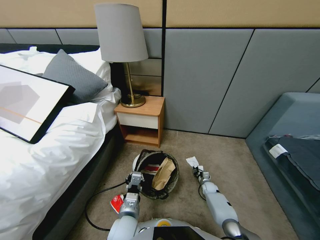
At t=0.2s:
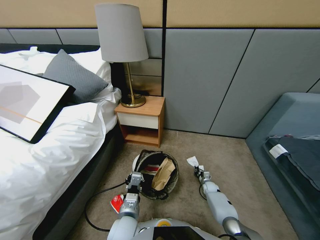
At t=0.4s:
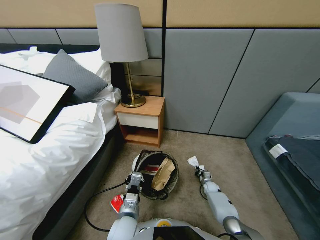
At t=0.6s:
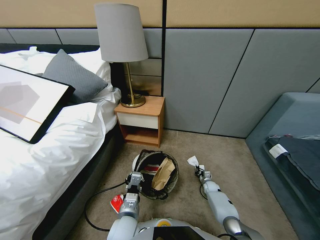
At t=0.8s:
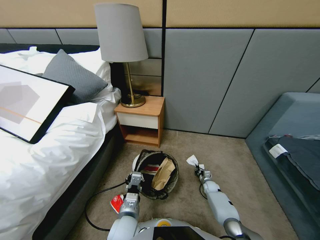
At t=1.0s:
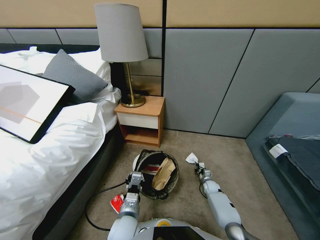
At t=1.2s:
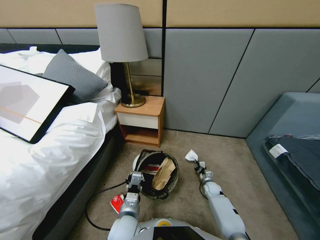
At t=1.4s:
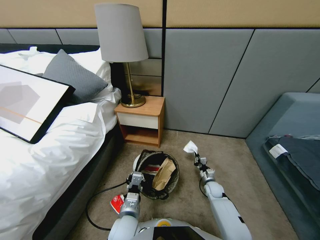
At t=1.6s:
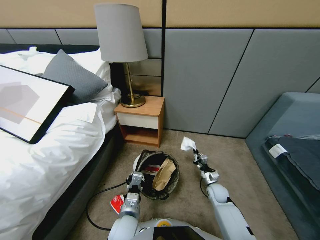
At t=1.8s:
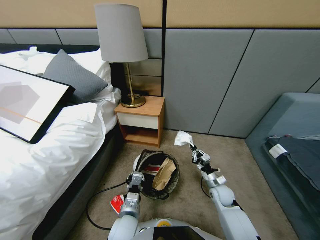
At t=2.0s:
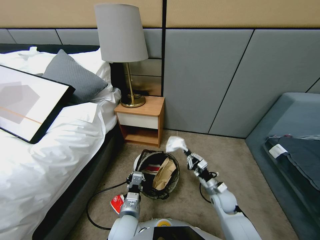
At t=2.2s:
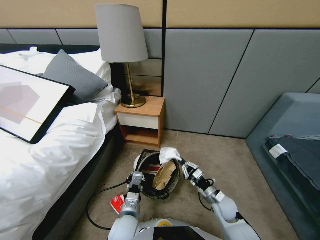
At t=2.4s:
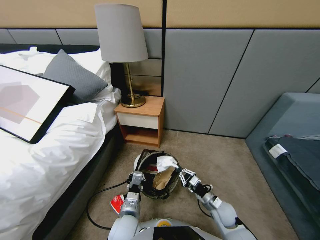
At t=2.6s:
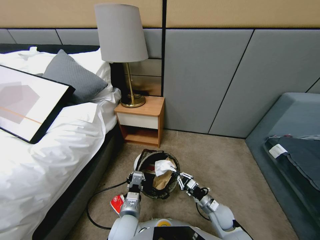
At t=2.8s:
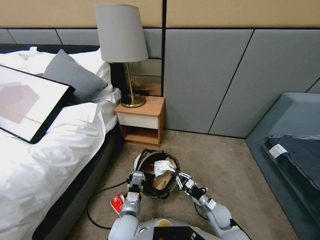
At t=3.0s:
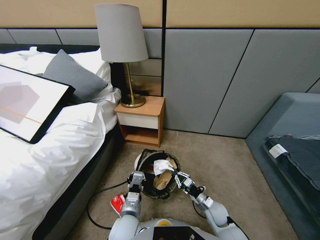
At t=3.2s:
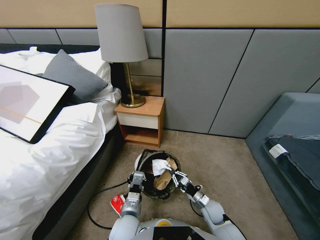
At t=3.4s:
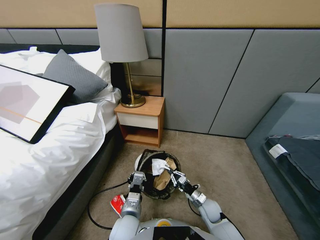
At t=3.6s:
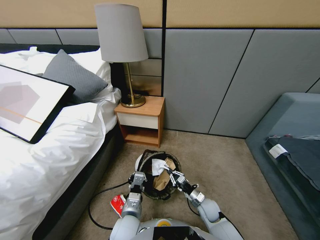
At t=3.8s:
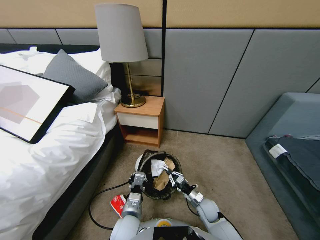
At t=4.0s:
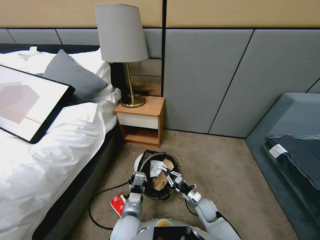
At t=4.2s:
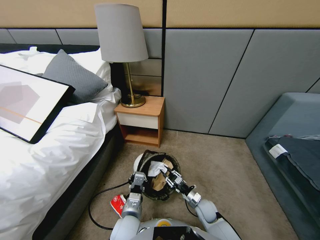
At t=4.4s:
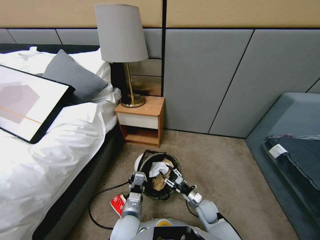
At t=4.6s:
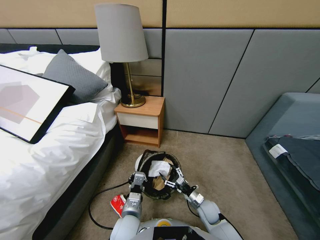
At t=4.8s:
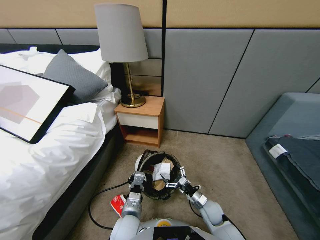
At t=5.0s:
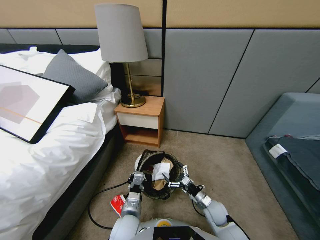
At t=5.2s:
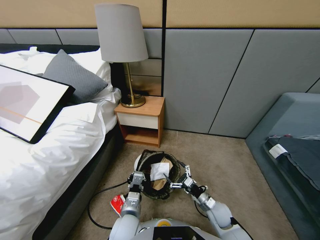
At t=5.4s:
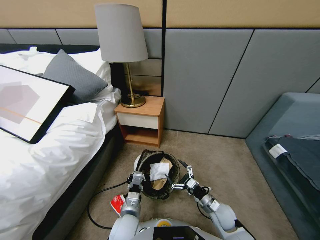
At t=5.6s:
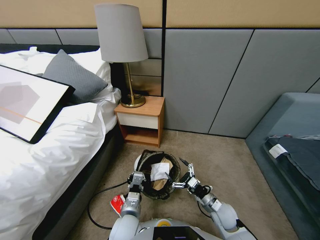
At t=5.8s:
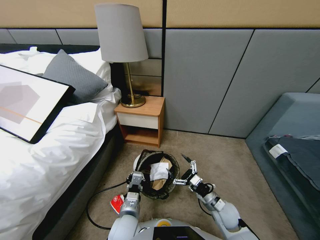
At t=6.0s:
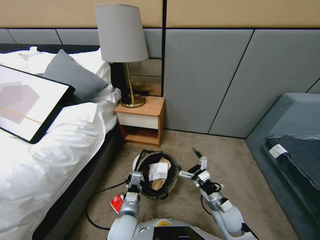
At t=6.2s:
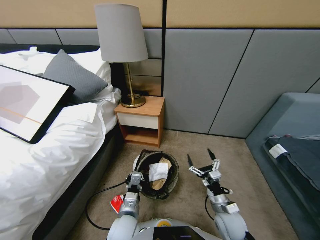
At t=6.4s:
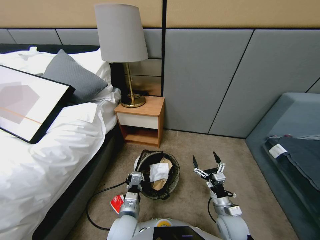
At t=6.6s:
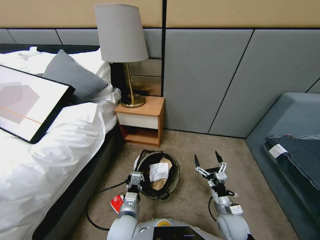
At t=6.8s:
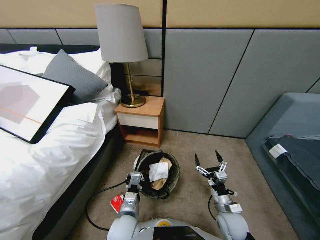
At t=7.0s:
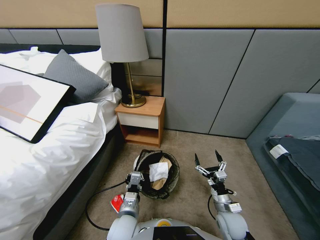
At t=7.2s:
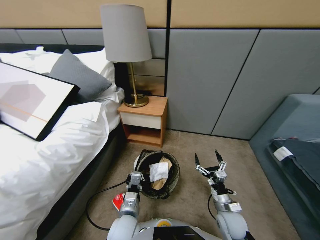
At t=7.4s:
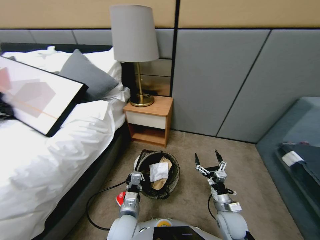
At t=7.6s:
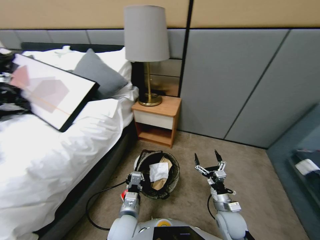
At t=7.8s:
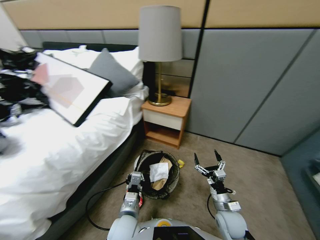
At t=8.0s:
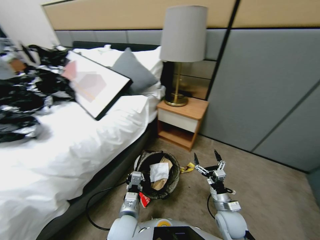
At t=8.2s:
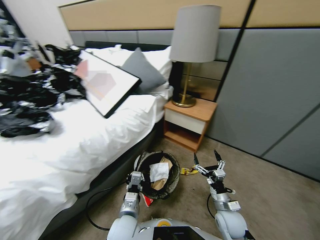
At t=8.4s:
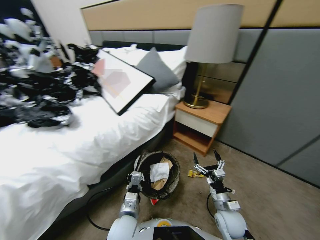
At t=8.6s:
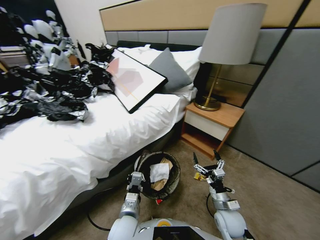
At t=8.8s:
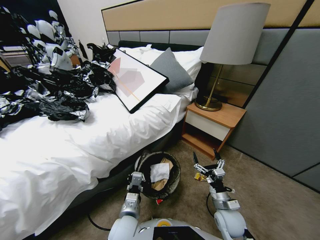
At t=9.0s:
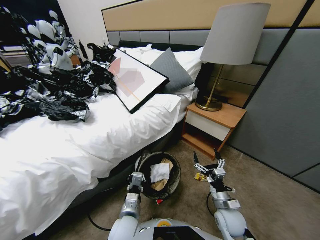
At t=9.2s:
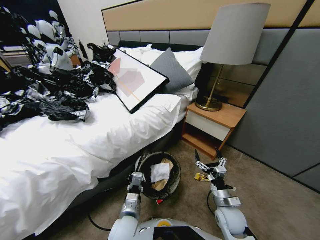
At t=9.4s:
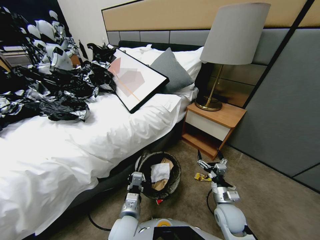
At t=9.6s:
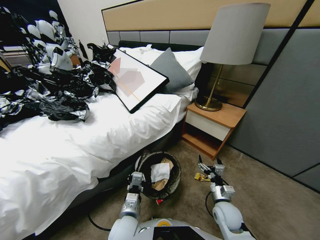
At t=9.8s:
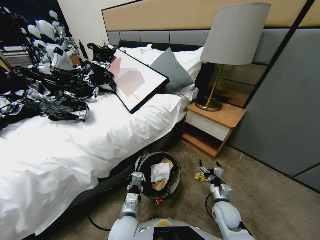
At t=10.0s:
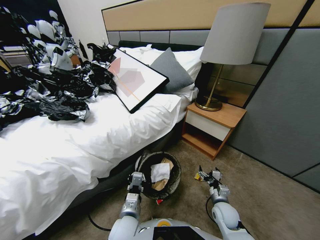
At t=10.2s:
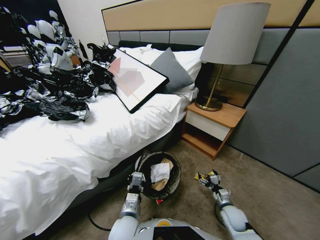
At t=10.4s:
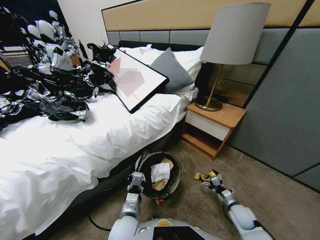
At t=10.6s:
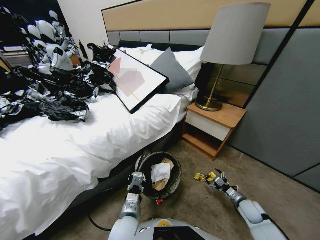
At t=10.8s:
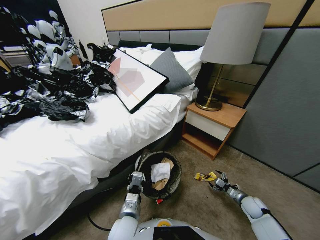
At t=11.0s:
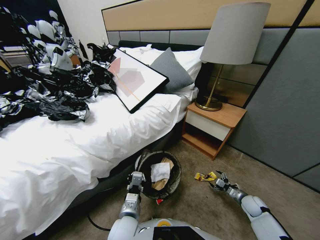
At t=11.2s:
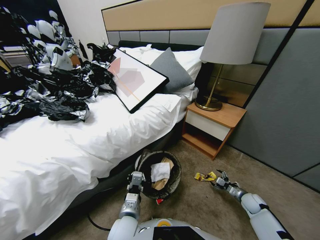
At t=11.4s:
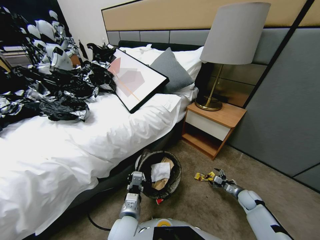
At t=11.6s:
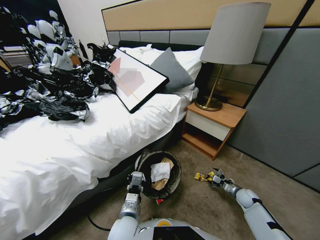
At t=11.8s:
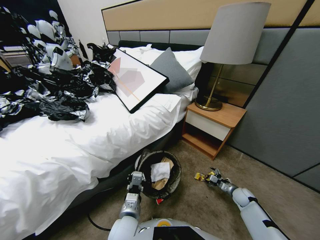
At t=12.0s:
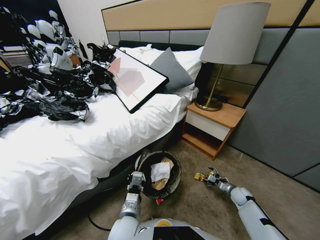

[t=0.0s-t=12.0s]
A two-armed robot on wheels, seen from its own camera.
Task of the whole recording: Pick up the trash bin, then pick up the garbage from the floor and place it into the trash bin.
t=0.0s to t=1.6s: The right gripper shifts roughly 20 cm upward and backward.
t=1.6s to t=3.0s: The right gripper goes some 10 cm backward and to the left.
t=3.0s to t=4.4s: The right gripper opens up.
t=4.4s to t=6.0s: The right gripper shifts about 10 cm upward.
t=9.0s to t=10.4s: The right gripper goes about 20 cm to the right and downward.
t=10.4s to t=12.0s: The right gripper moves forward and downward, about 10 cm.

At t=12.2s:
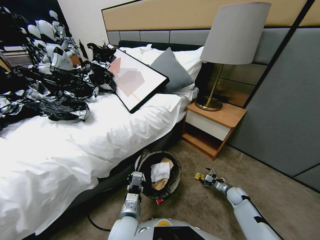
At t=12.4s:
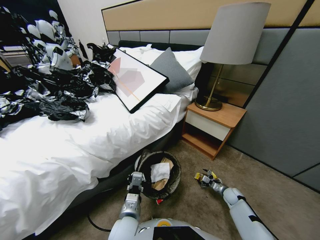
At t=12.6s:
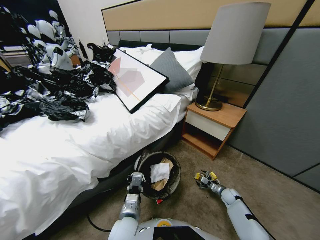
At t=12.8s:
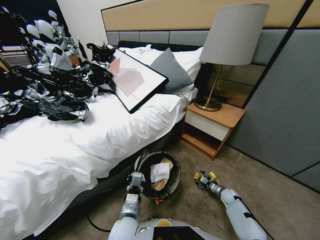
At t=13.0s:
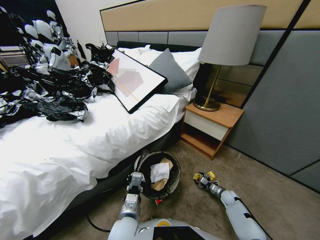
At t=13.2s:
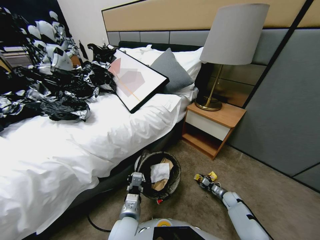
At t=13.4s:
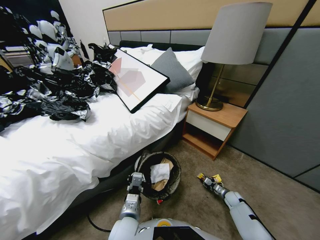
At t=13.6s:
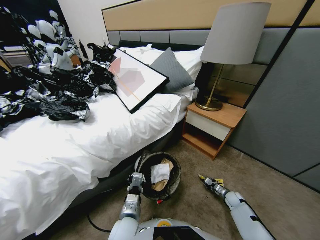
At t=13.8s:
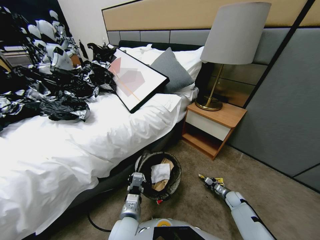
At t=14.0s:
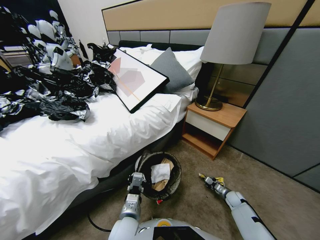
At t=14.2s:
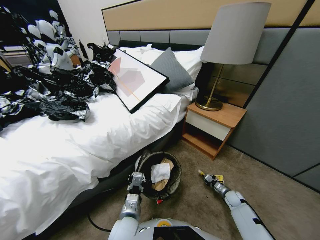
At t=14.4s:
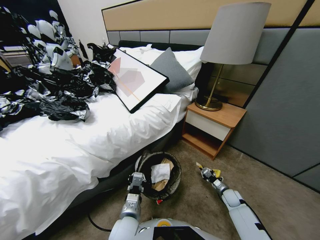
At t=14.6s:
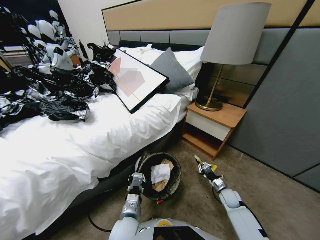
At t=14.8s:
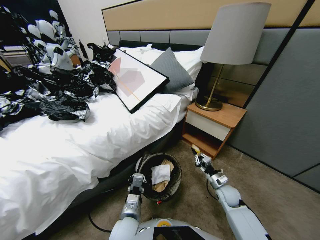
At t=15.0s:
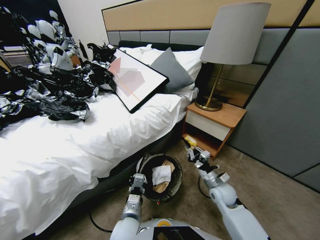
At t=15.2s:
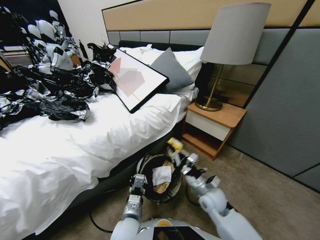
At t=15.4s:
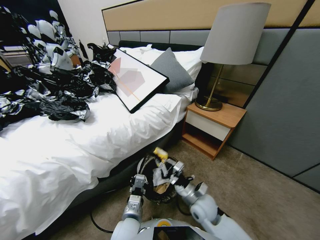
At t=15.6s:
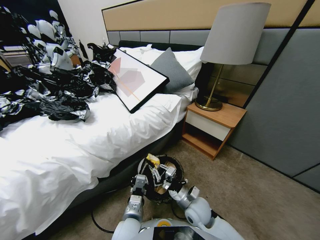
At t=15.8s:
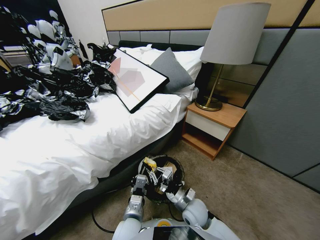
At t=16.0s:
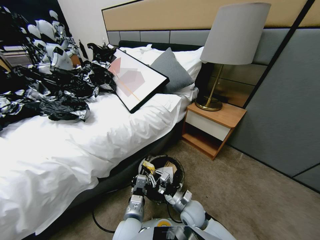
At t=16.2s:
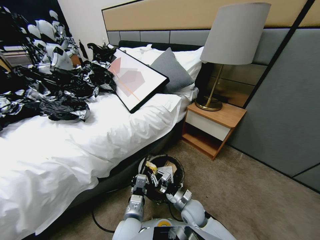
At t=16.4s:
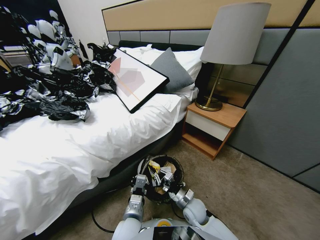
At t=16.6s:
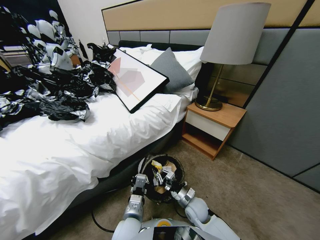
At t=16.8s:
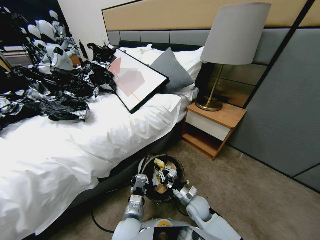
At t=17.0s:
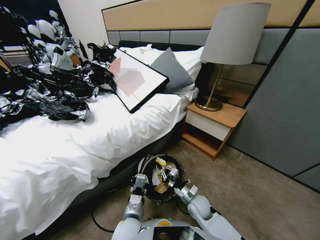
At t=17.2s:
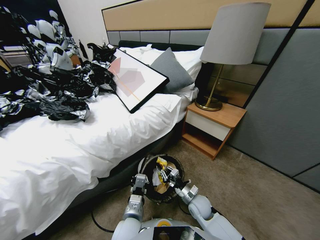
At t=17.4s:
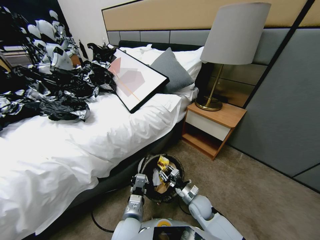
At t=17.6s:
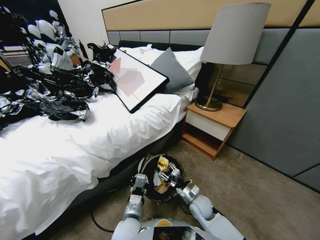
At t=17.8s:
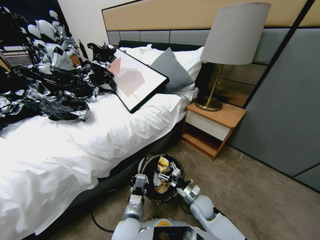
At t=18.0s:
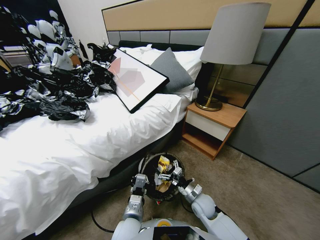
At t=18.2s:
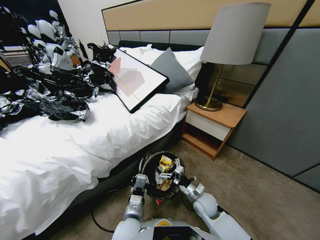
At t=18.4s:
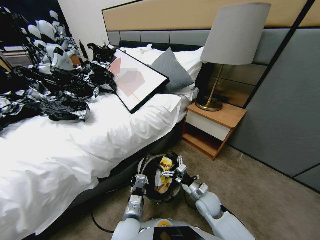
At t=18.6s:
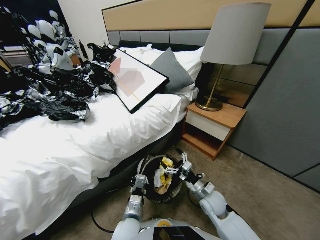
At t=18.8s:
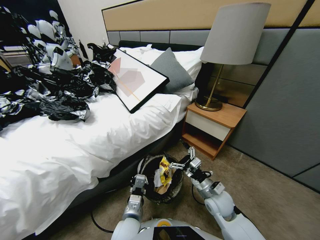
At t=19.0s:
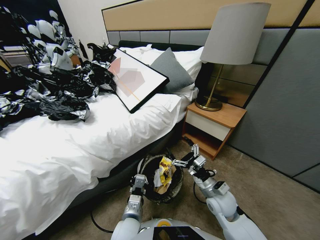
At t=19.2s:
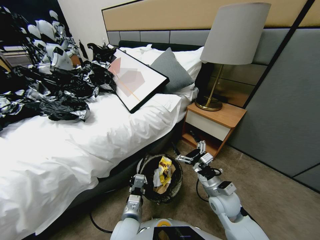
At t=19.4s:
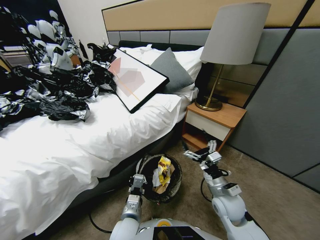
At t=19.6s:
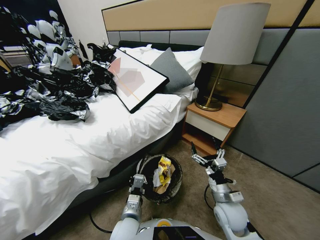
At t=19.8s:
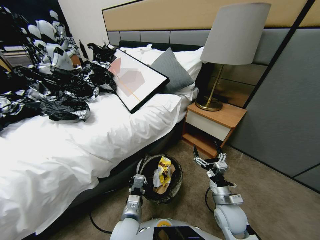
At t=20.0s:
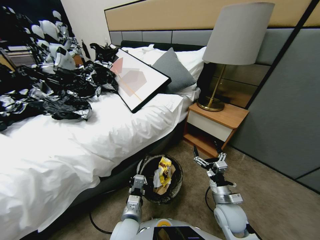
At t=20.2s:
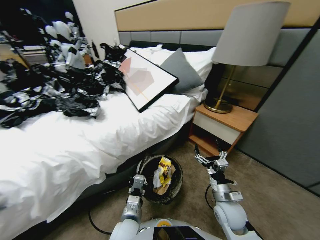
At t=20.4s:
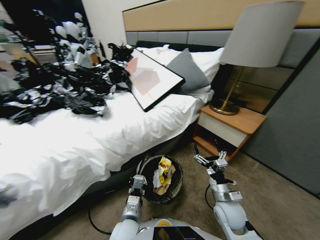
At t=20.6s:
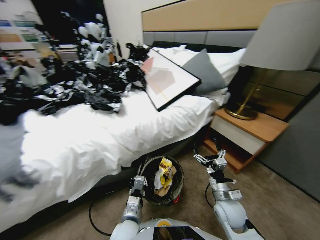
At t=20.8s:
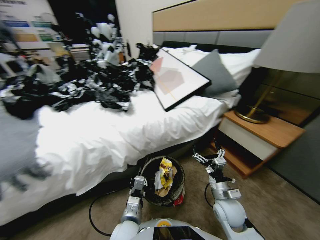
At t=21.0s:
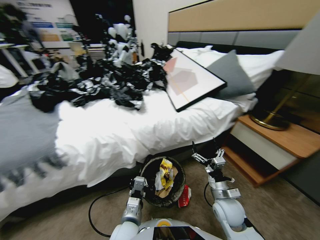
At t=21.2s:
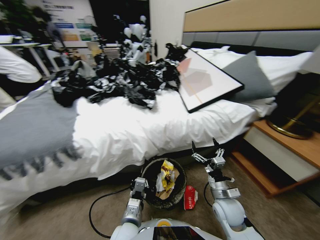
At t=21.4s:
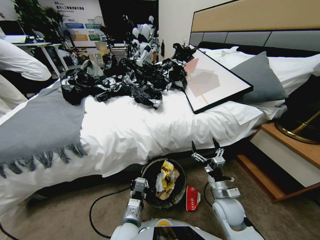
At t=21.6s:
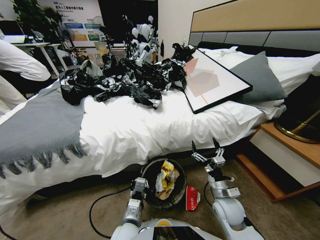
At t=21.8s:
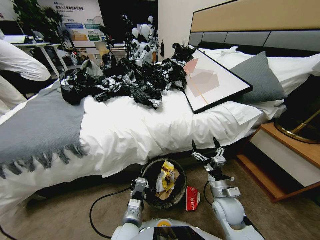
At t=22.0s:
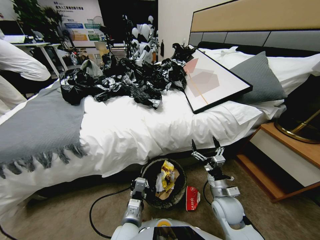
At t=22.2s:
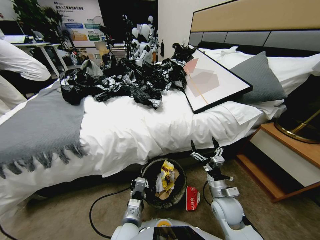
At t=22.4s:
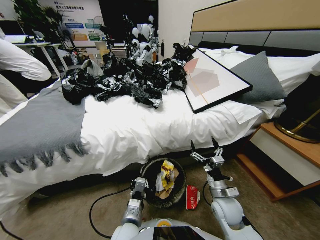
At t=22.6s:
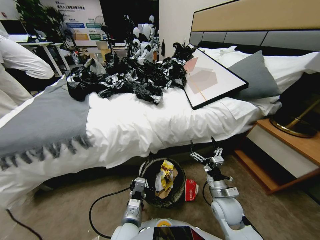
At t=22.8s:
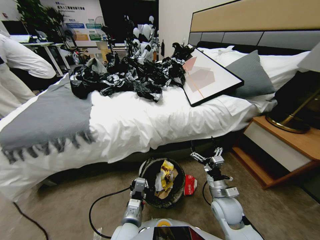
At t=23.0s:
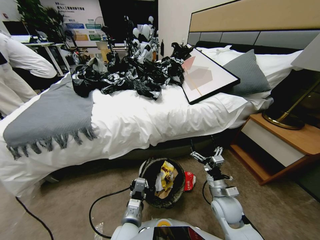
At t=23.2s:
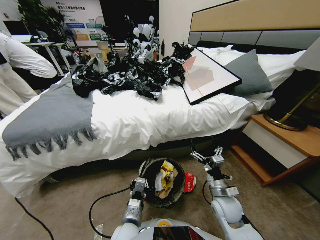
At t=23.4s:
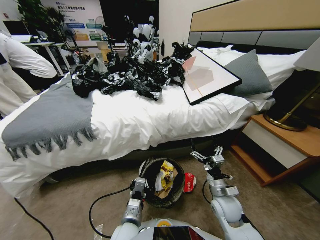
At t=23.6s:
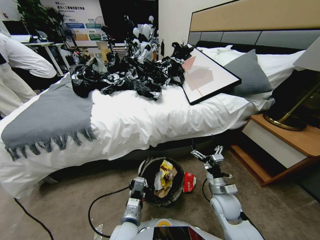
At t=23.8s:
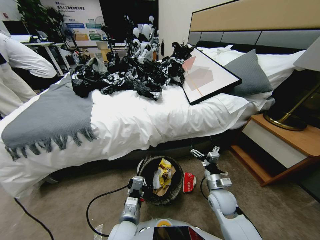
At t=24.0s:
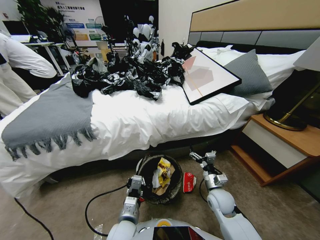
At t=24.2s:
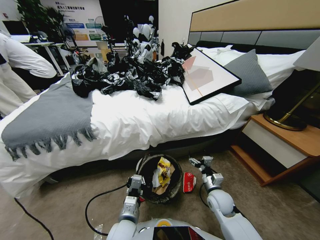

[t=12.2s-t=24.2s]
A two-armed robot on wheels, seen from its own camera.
Task of the whole recording: Pick up the trash bin, then pick up the garbage from the floor and place it into the trash bin.
t=12.2s to t=13.8s: The right gripper closes.
t=13.8s to t=15.2s: The right gripper travels to the left and upward by approximately 35 cm.
t=15.2s to t=16.6s: The right gripper shifts roughly 10 cm downward.
t=16.6s to t=18.2s: The right gripper moves about 5 cm, and opens.
t=18.2s to t=19.8s: The right gripper shifts about 10 cm upward and backward.
t=22.6s to t=24.2s: The right gripper travels downward by about 5 cm.
